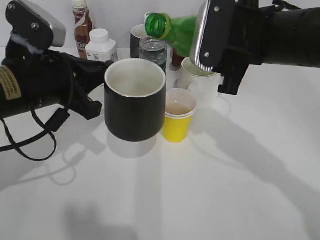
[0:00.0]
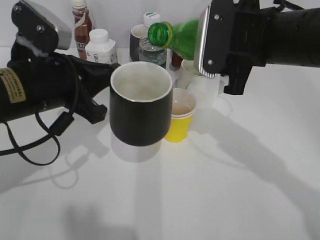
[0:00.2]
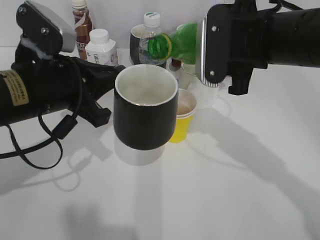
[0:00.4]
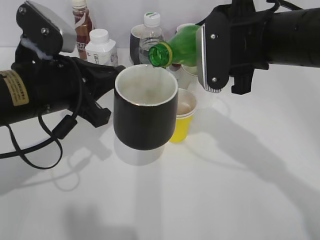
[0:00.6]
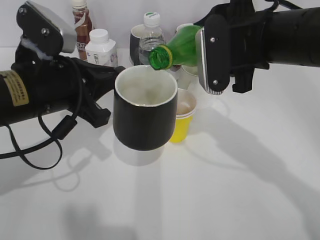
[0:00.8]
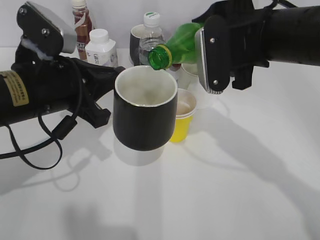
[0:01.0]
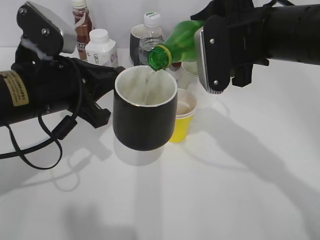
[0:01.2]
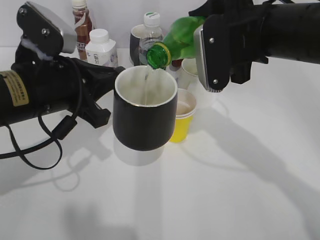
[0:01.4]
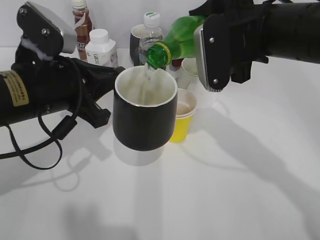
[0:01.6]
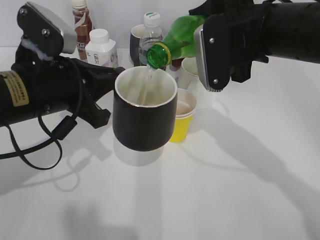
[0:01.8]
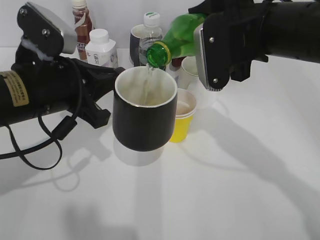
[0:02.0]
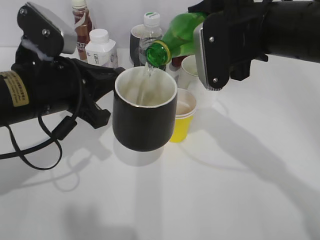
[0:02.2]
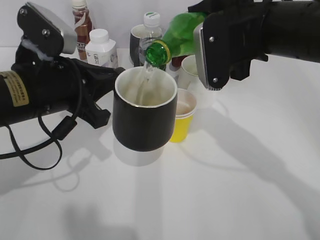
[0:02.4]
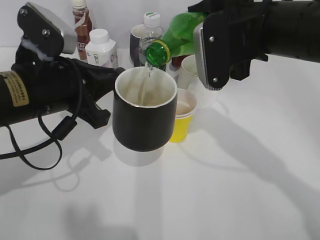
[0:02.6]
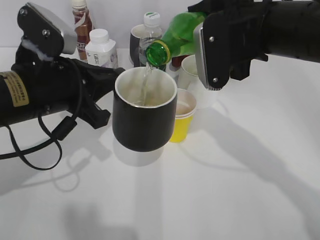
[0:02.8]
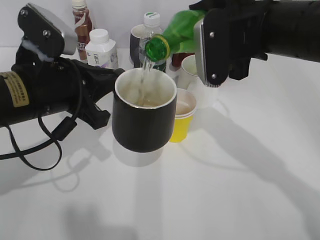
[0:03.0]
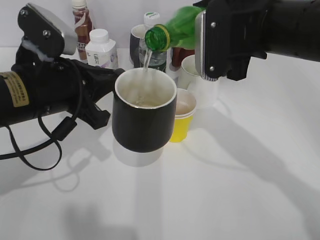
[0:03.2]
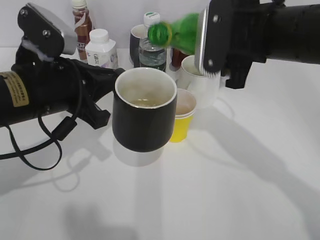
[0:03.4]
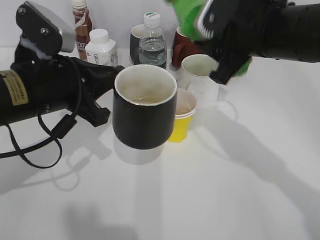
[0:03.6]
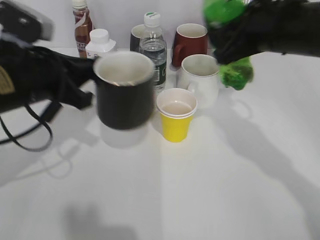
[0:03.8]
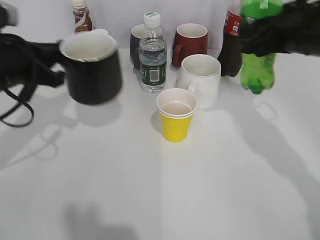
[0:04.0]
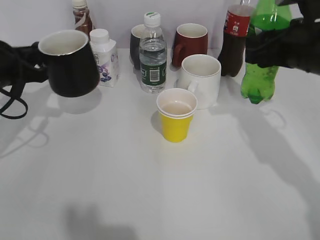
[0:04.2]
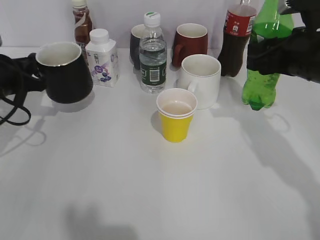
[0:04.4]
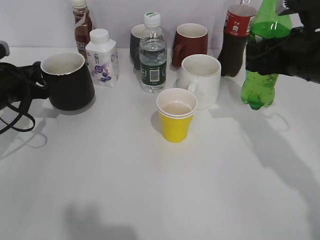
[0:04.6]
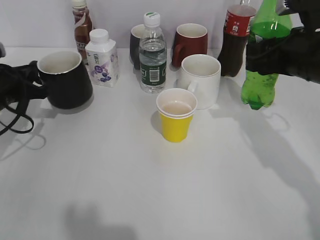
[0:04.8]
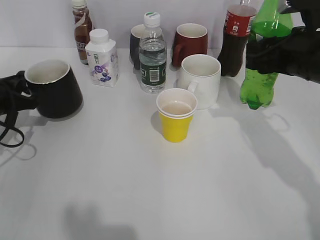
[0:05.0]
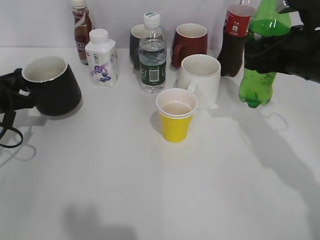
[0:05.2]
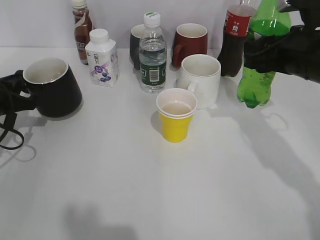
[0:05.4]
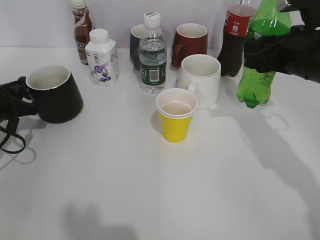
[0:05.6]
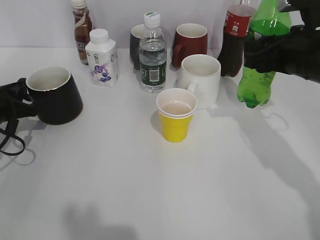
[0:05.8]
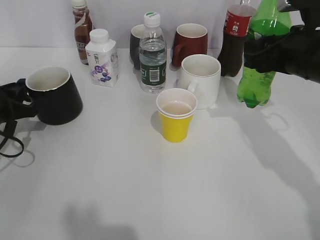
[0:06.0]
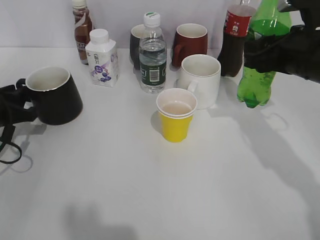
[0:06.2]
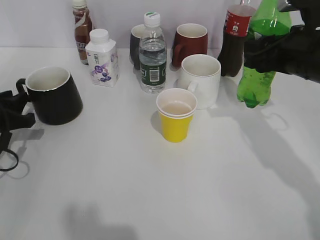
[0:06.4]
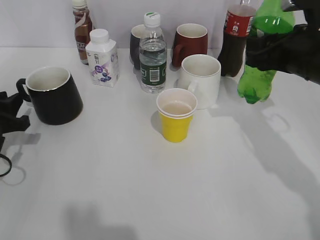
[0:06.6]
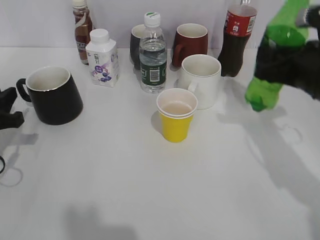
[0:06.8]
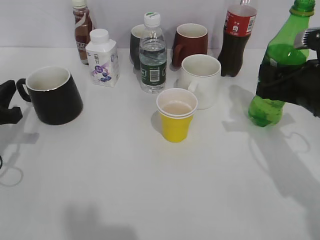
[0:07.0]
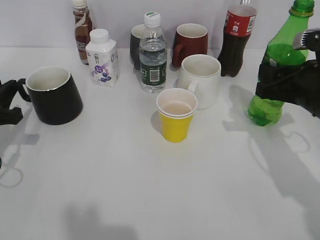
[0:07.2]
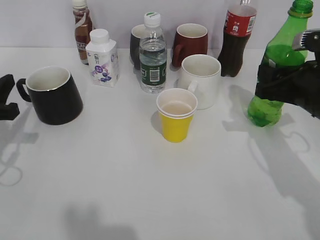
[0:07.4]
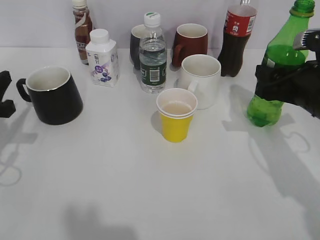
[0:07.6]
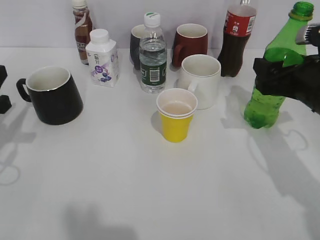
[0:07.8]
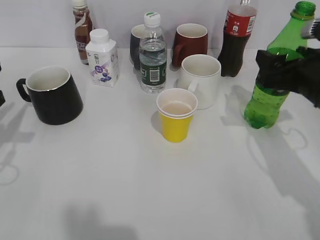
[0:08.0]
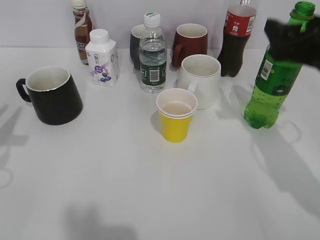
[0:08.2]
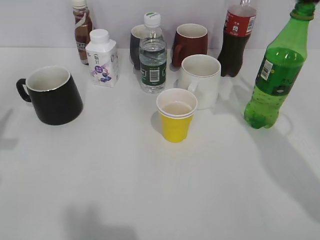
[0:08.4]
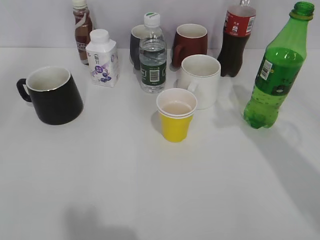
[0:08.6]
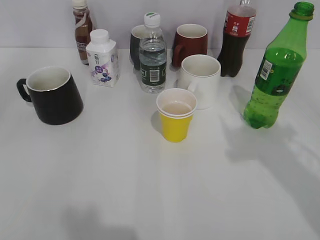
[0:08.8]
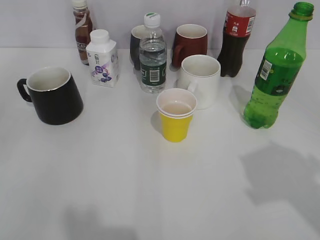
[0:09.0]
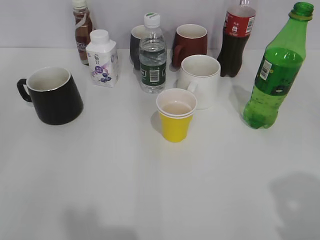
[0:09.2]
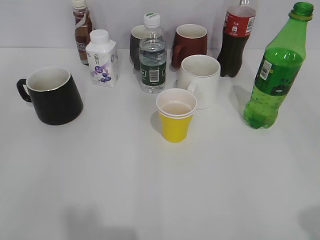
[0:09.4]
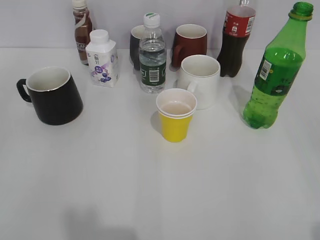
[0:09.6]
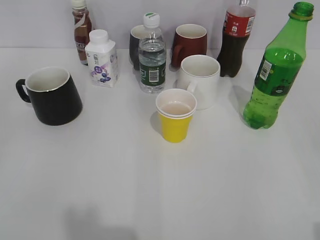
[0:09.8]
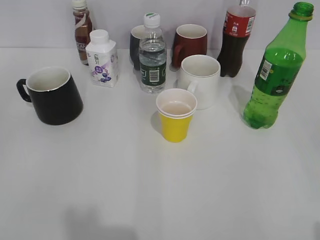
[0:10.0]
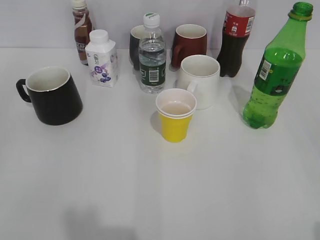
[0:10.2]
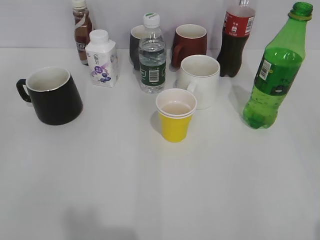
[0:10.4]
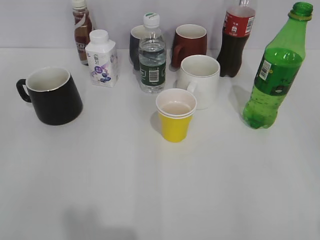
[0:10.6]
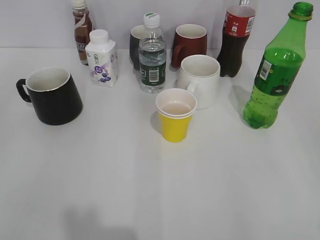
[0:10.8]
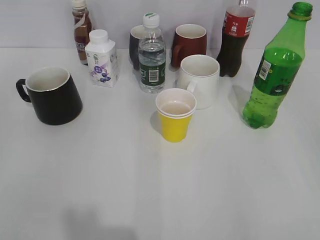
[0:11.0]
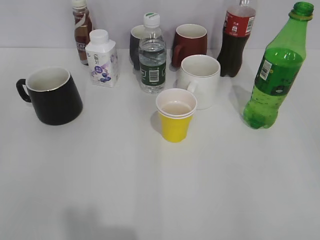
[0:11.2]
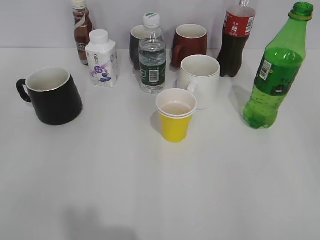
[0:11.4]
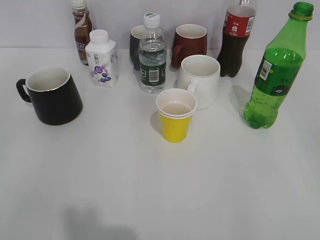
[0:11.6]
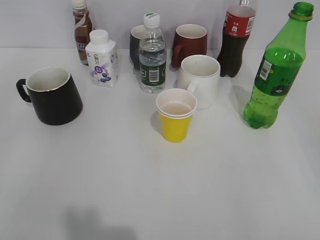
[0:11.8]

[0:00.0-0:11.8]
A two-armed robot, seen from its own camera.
Step, 0:00.0 to 0:03.4: Pour the sprite from bottle to cup with right gripper.
Step, 0:03.6 to 0:06.2: Place the black cup on the table with left gripper.
Step, 0:06.6 to 0:08.0: Place the sprite bottle on the table with right gripper.
0:01.4 to 0:03.0: The two grippers keep their place.
0:03.0 to 0:04.4: The left gripper moves to the left and forward, some 15 cm. The right gripper heads to the right, covering some 10 cm.
0:04.4 to 0:06.0: The left gripper shifts by approximately 5 cm.
0:06.0 to 0:07.4: The left gripper moves backward, about 5 cm. The right gripper ends up some 5 cm from where it was.
0:07.4 to 0:08.8: Both grippers travel together upward and backward, some 20 cm. The right gripper opens its fingers.
0:08.8 to 0:10.4: The right gripper shifts about 20 cm backward, downward and to the right, and closes its fingers.

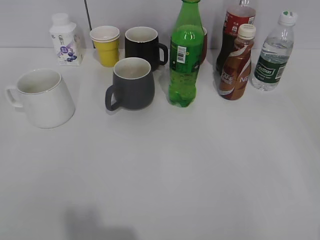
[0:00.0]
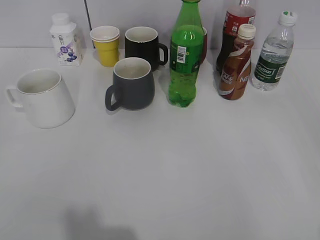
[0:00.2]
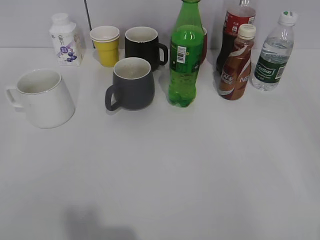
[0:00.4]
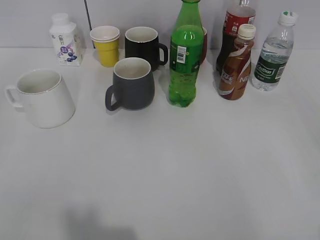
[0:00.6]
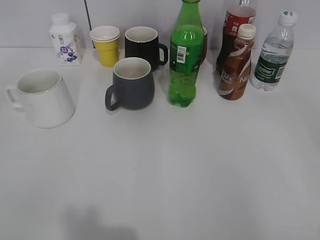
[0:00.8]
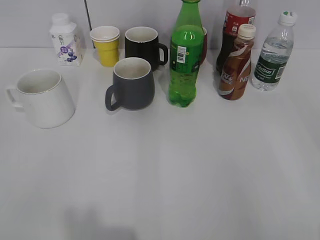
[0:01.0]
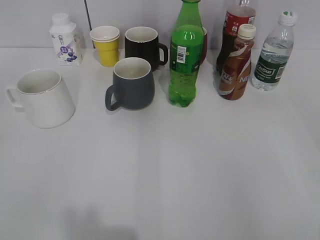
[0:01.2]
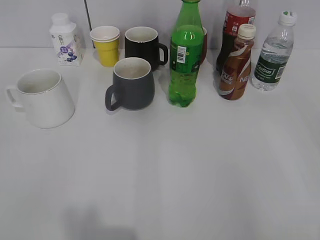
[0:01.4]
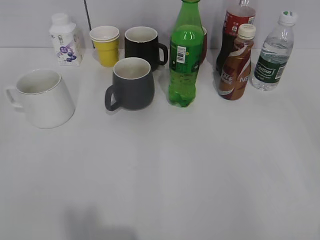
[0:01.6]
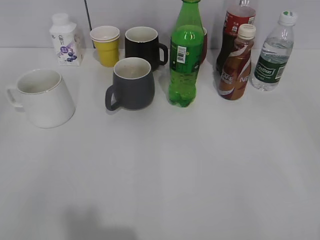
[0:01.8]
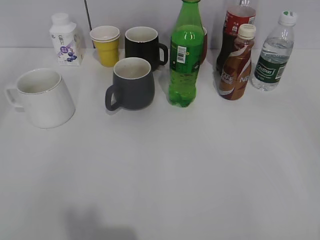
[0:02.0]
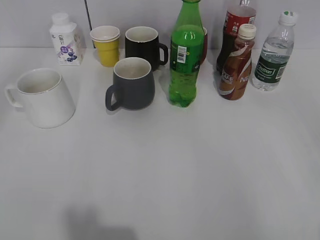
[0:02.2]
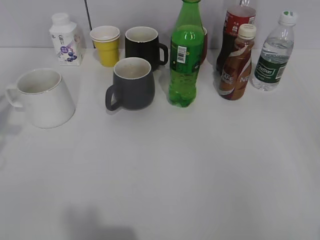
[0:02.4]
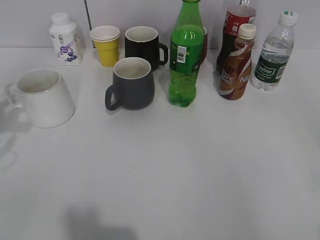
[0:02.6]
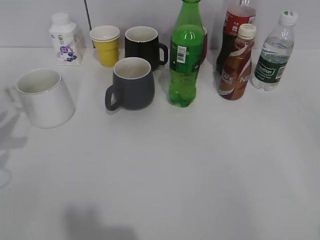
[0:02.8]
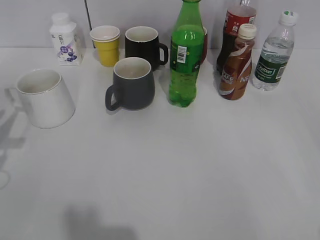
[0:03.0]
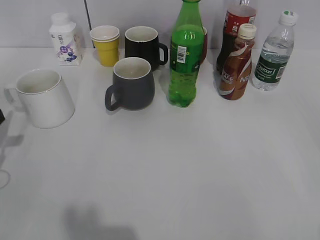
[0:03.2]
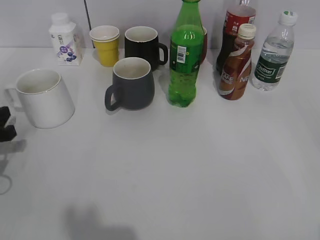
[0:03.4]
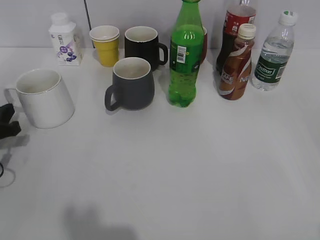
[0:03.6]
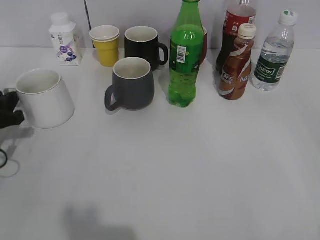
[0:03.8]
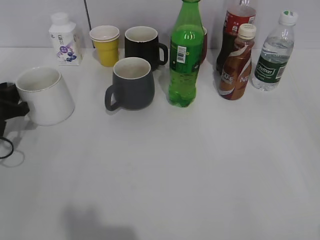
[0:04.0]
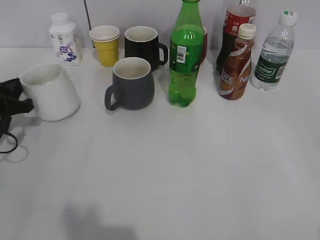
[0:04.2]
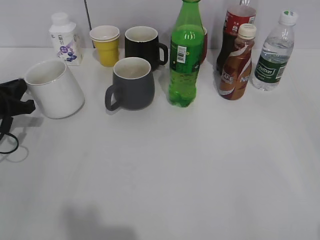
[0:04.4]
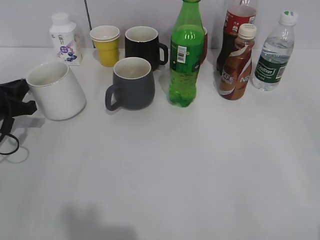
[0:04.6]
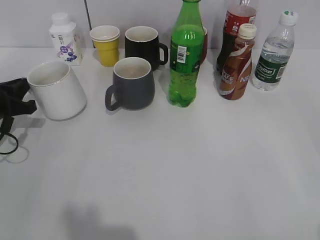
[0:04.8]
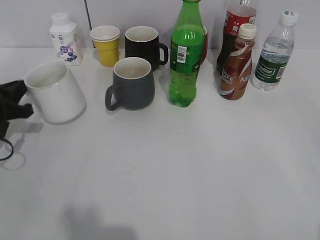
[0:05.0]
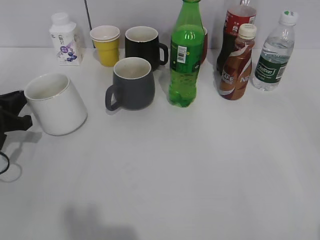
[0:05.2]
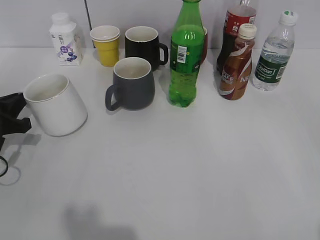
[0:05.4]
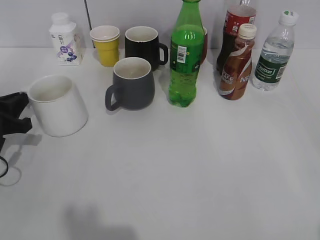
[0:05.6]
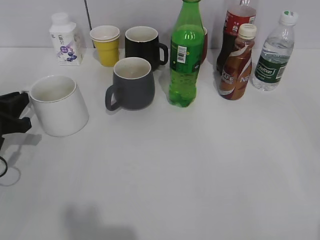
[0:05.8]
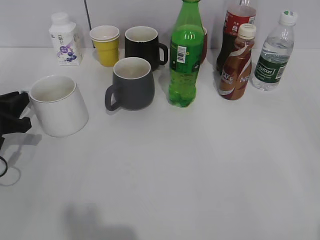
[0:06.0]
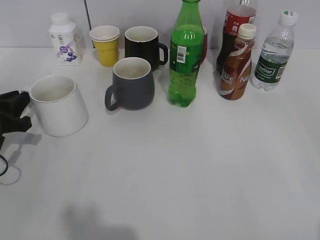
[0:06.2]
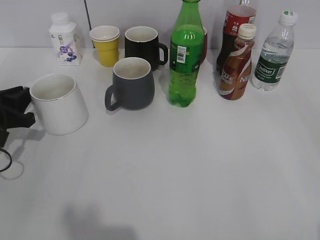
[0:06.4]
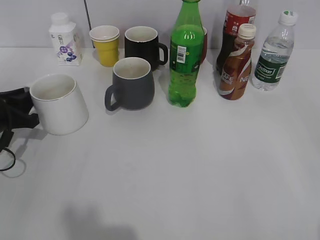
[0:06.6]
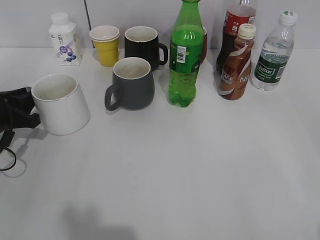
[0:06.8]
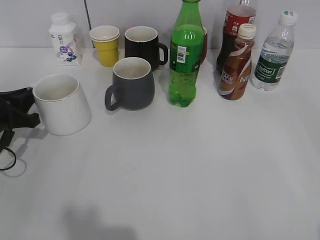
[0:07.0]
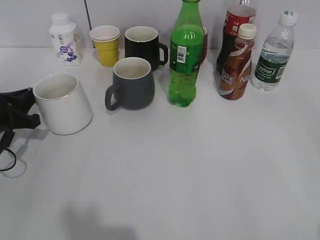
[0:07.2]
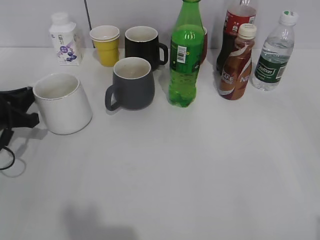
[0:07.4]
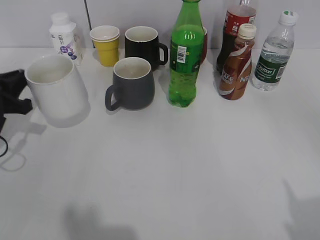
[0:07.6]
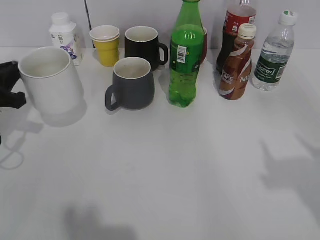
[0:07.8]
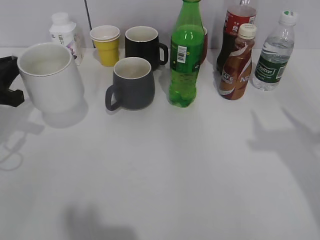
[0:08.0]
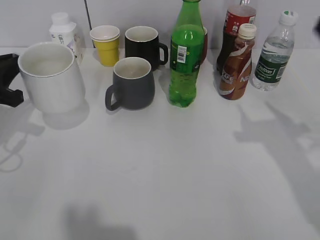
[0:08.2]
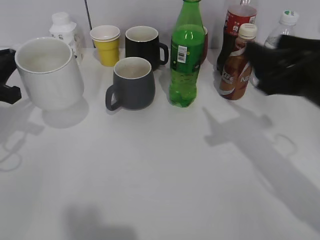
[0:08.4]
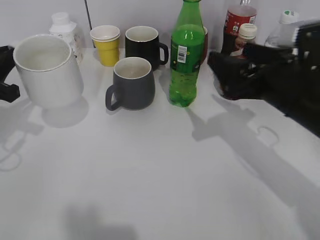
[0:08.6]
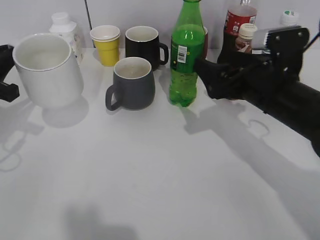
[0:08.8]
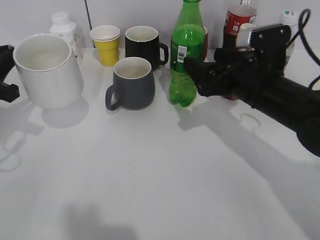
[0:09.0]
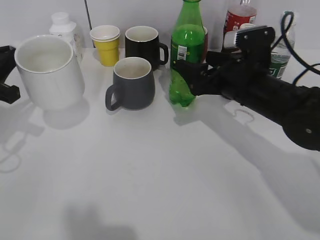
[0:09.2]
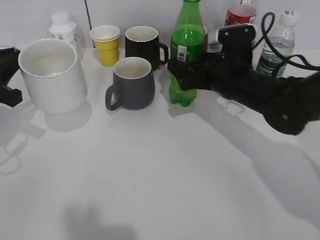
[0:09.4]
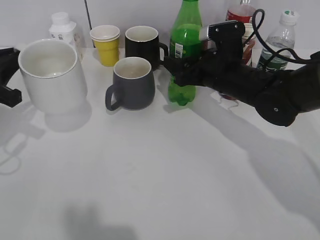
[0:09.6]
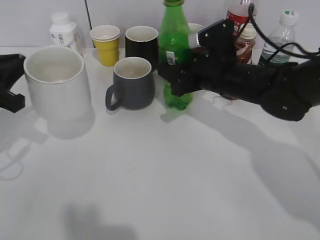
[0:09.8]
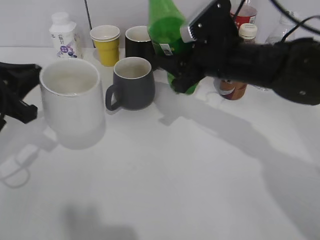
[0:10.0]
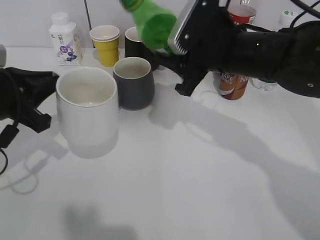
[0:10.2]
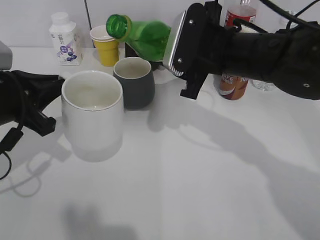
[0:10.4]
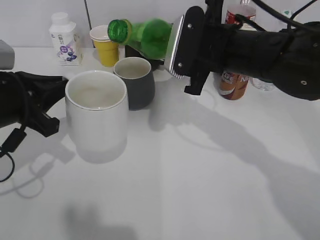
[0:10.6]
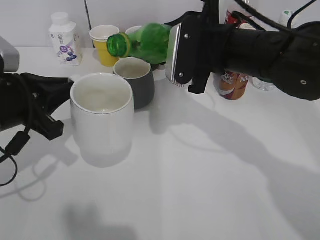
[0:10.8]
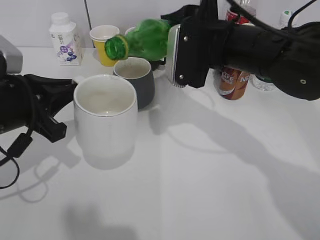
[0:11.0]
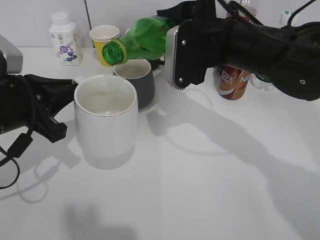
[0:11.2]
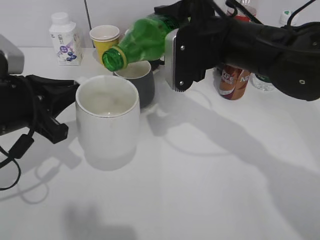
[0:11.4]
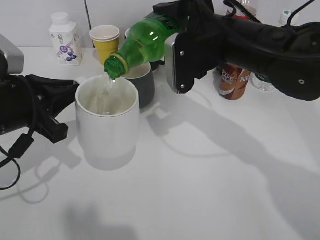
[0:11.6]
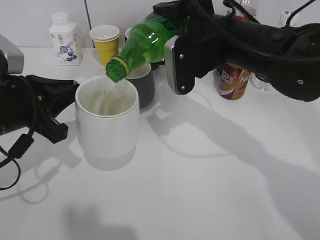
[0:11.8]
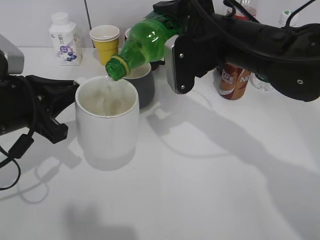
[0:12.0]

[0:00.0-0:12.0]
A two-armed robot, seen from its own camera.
Step, 0:01.6 to 0:07.2: Grasp the white cup with left gripper.
Step, 0:07.6 to 0:09.6: Grasp the bottle with sprite with right gripper.
0:01.6 to 0:03.0: The left gripper goes approximately 25 cm forward and downward.
0:03.0 to 0:04.4: The left gripper goes about 10 cm forward and downward, and closes.
0:04.4 to 0:07.6: The grippers make only small movements.
0:07.6 to 0:09.0: The right gripper shifts roughly 35 cm forward, to the left and downward, while the left gripper moves upward, approximately 5 cm.
0:09.0 to 0:10.4: The left gripper goes roughly 5 cm to the right, while the right gripper travels to the left by roughly 5 cm, and closes its fingers.
